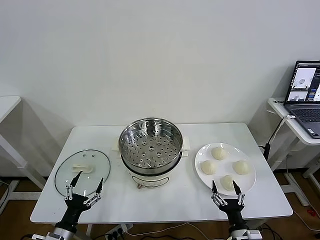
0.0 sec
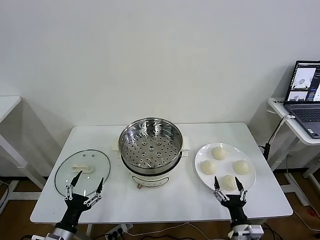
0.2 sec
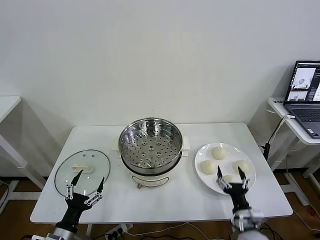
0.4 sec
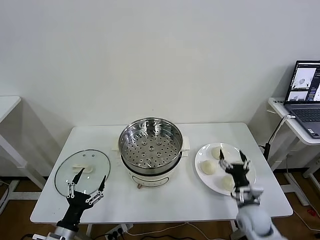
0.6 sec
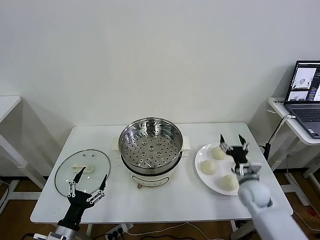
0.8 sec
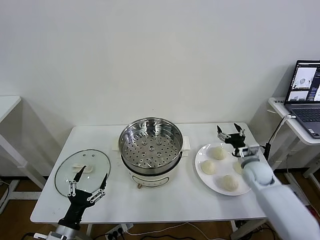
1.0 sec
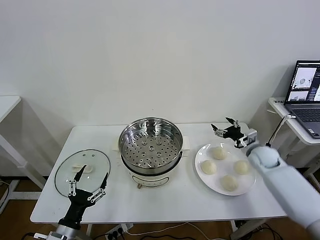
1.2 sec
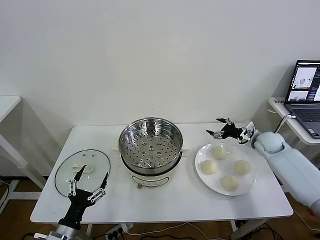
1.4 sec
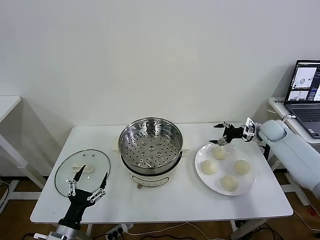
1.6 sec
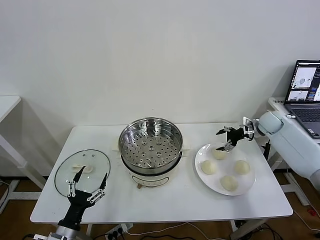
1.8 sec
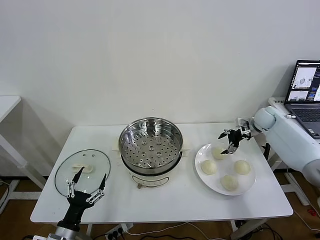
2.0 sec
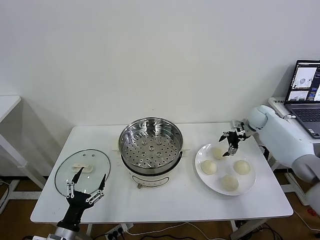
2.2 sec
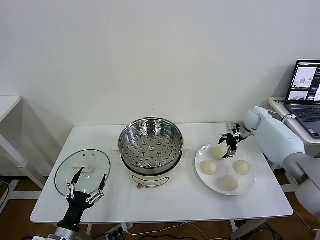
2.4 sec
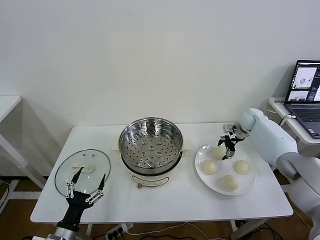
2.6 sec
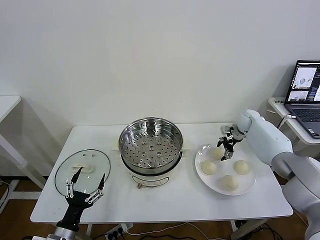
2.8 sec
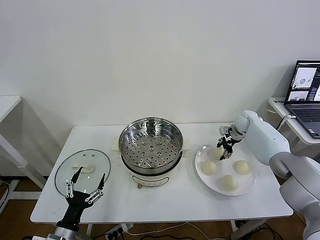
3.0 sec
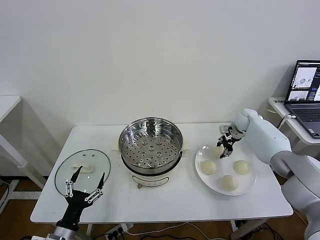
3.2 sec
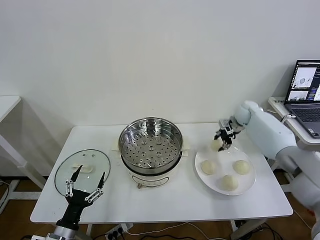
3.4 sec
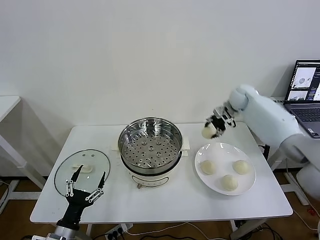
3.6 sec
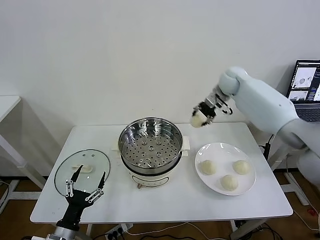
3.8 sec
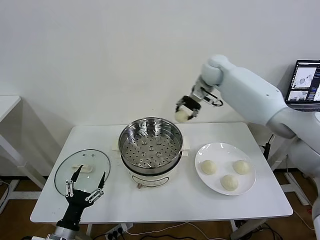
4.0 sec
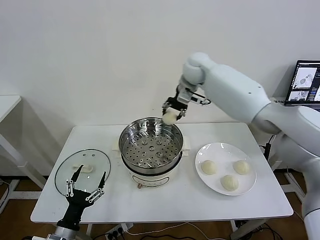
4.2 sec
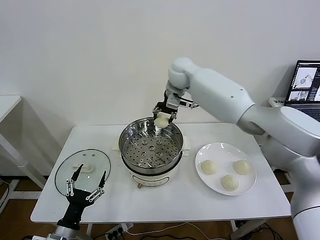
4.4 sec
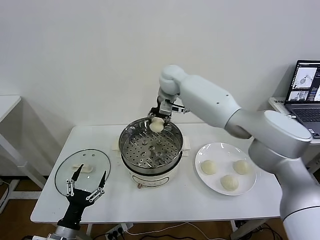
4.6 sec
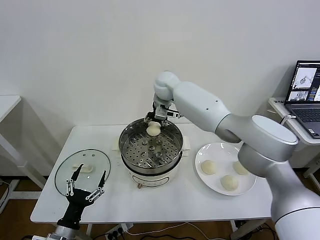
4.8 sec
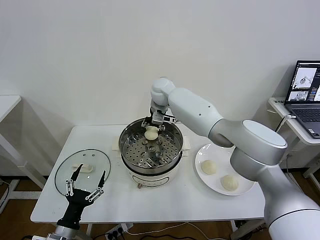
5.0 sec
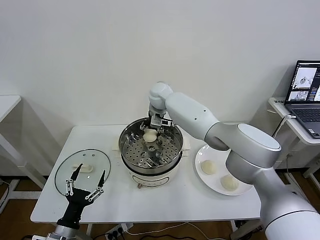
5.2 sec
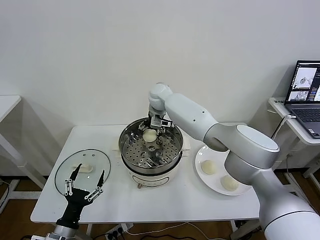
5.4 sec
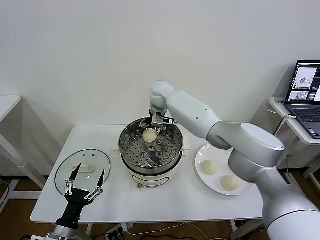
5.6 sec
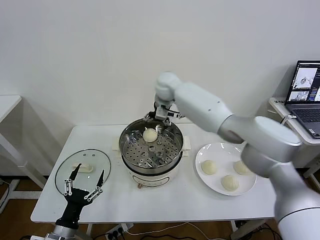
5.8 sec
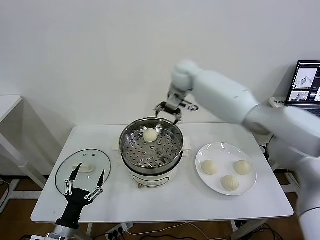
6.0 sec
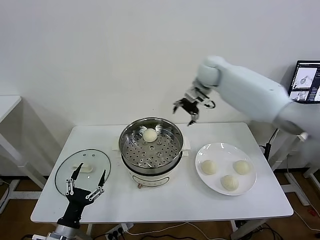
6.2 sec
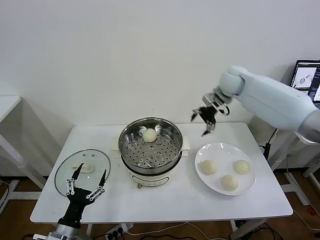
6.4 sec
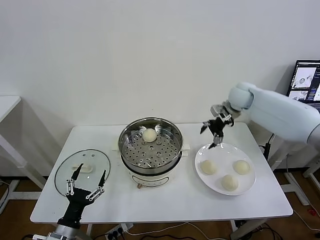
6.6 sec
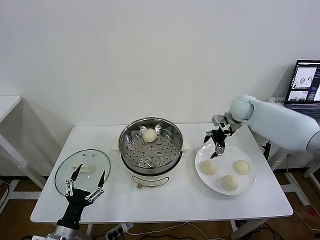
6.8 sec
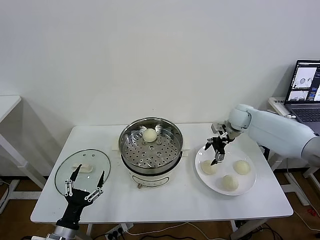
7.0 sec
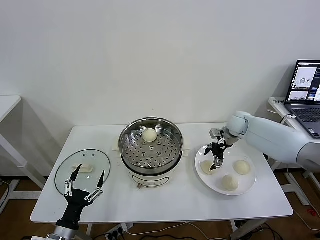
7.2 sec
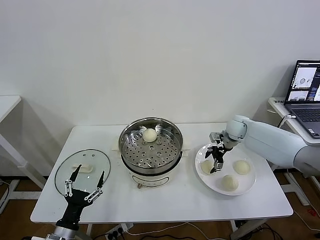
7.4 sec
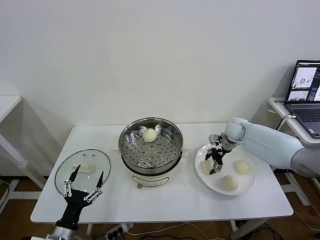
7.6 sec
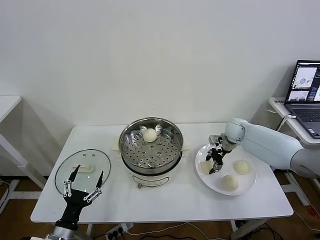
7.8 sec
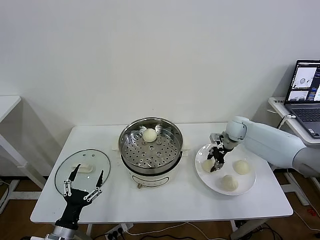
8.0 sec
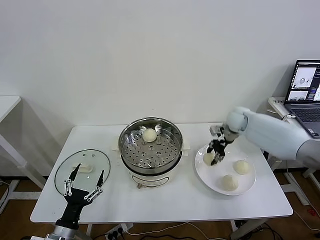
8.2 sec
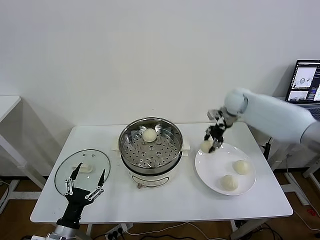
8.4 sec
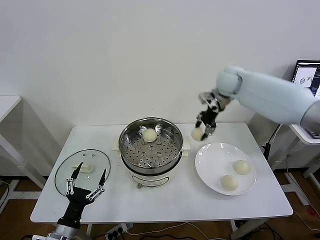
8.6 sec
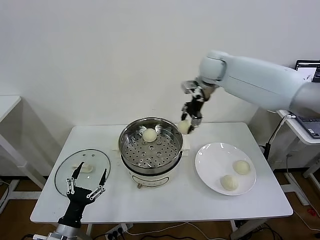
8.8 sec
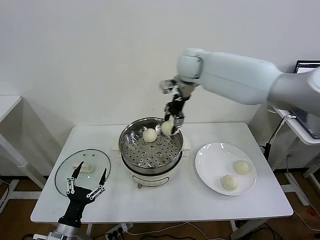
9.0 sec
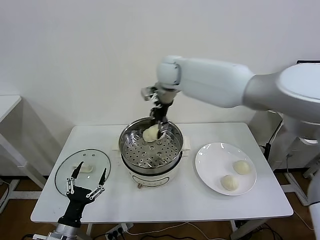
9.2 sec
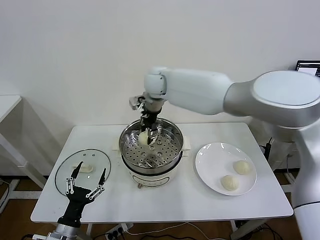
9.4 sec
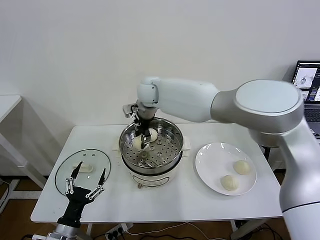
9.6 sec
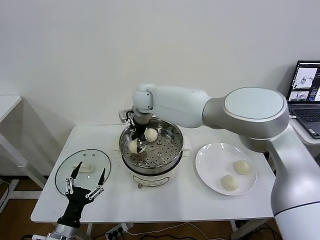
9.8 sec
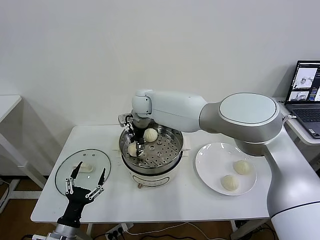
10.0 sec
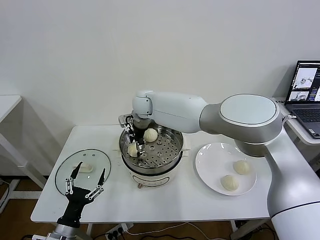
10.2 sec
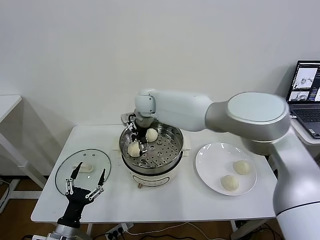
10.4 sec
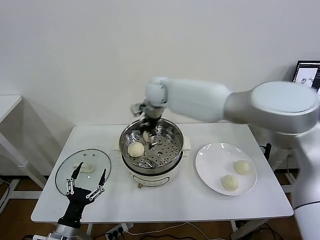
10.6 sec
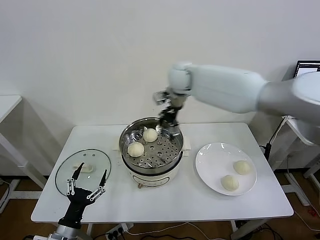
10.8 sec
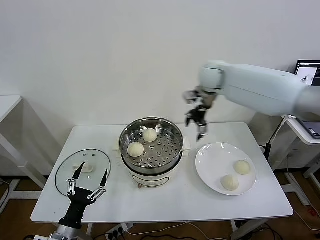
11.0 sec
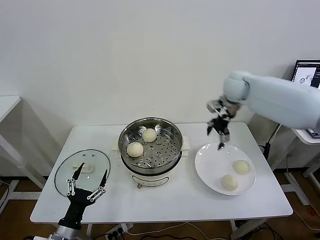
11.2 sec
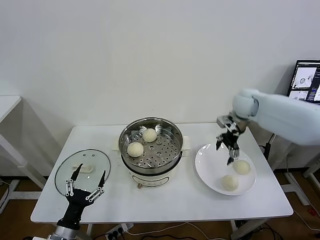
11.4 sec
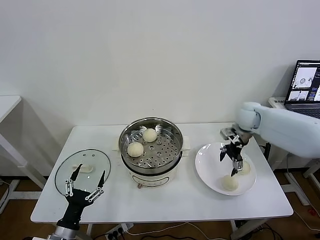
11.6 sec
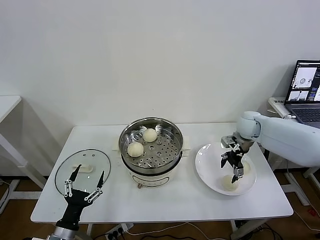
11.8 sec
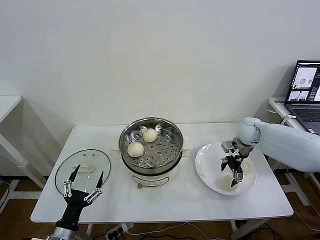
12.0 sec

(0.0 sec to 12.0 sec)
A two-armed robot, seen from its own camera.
Task of the whole recording: take steamed baozi put them in steamer then cover it.
Step, 0.0 sec - 3.0 sec: Grasp the baozi in the plate with right gripper.
Step, 3.4 sec - 5.4 sec: Place the baozi on the steamer with right gripper.
Step, 5.6 sec - 7.8 sec: Grasp the baozi in the plate with right gripper.
Step, 8.2 sec - 10.2 sec: Place the baozi on the steamer with right gripper.
1.6 sec - 3.0 sec: The right gripper goes approximately 10 cm to the left and forward, and closes its fingers.
3.0 sec - 4.4 sec: The right gripper moves to the left and upward, about 40 cm.
4.4 sec - 6.0 sec: The right gripper heads to the right, covering some 10 cm, and opens.
6.0 sec - 7.6 sec: The right gripper travels downward and to the right by some 30 cm, and closes.
7.6 sec - 9.0 sec: The right gripper heads upward and to the left, covering about 35 cm, and closes.
9.0 sec - 10.4 sec: The right gripper shifts approximately 15 cm downward and to the left, and opens up.
10.4 sec - 12.0 sec: The right gripper goes approximately 35 cm to the right.

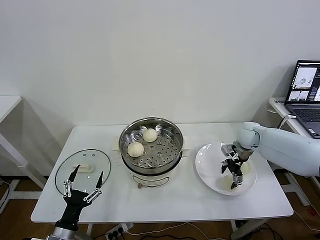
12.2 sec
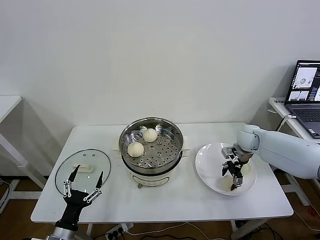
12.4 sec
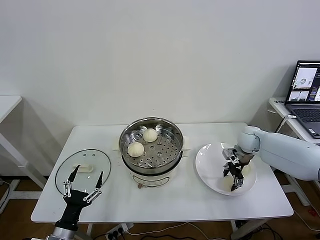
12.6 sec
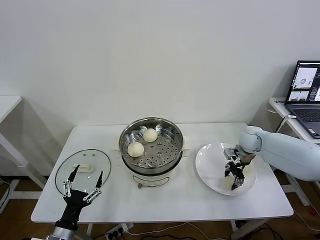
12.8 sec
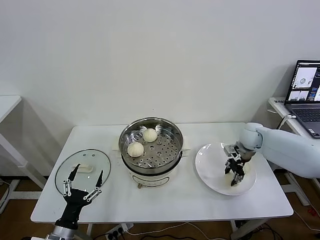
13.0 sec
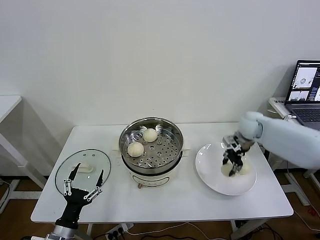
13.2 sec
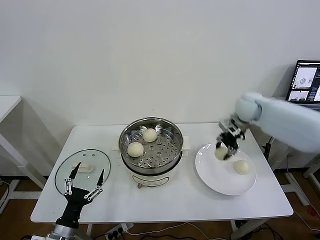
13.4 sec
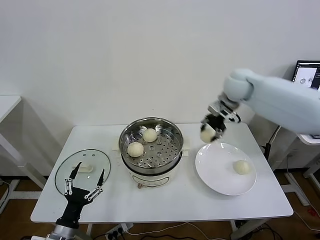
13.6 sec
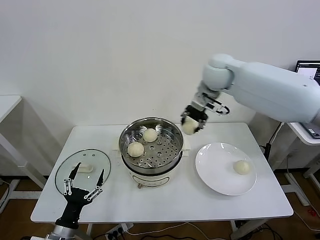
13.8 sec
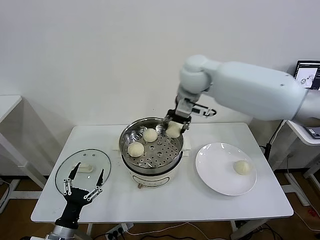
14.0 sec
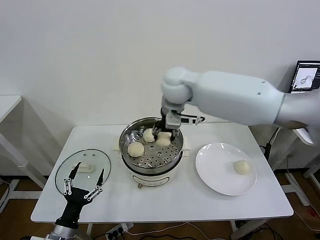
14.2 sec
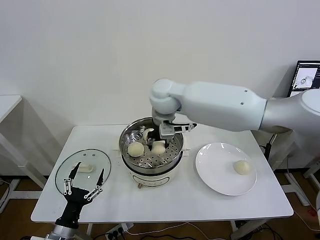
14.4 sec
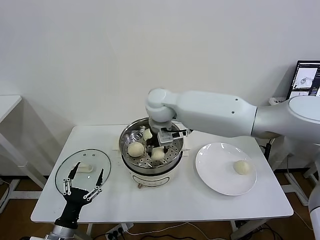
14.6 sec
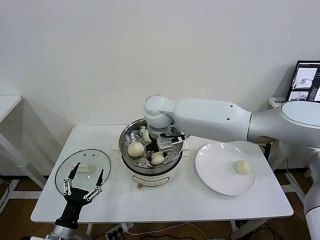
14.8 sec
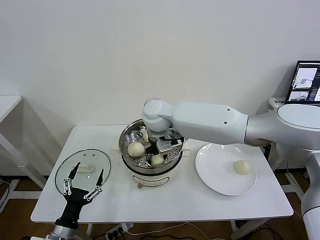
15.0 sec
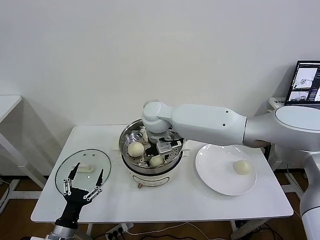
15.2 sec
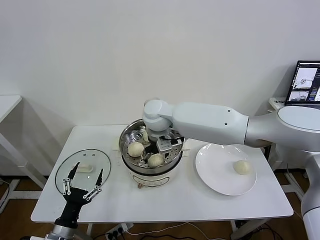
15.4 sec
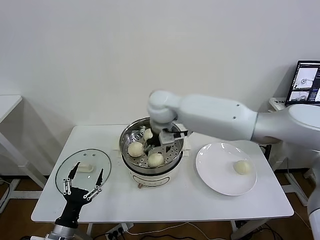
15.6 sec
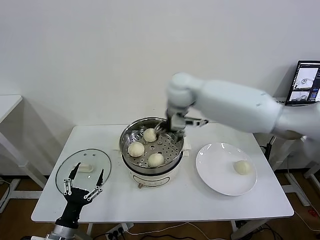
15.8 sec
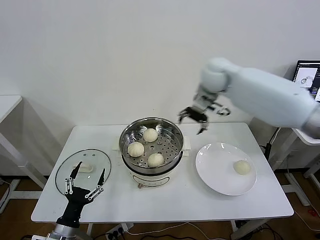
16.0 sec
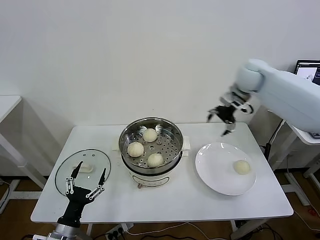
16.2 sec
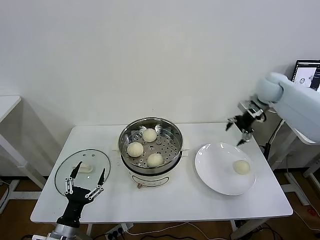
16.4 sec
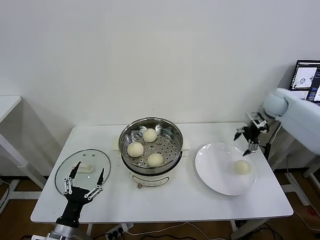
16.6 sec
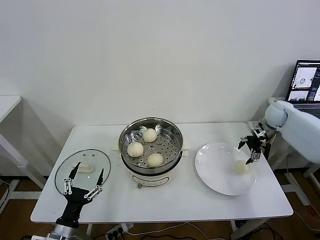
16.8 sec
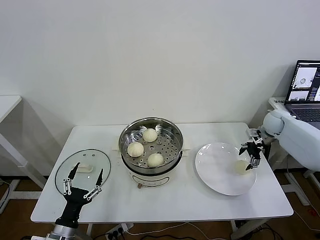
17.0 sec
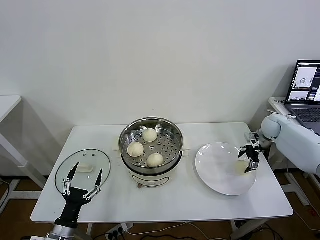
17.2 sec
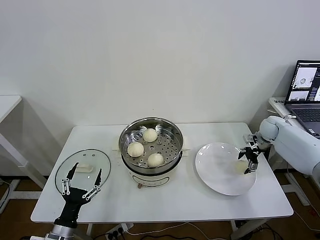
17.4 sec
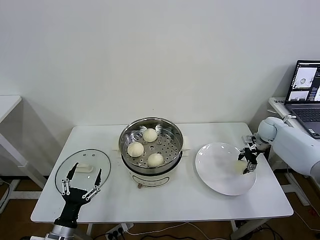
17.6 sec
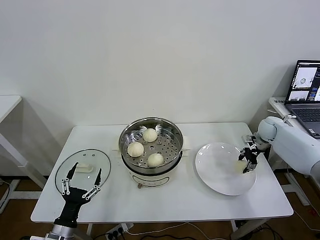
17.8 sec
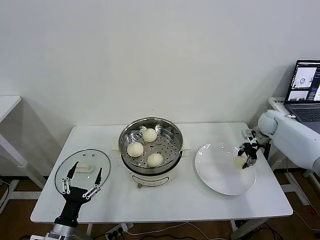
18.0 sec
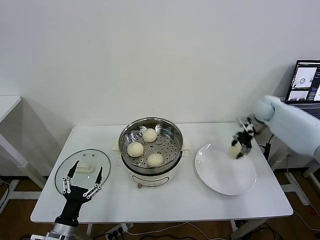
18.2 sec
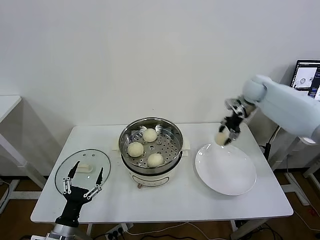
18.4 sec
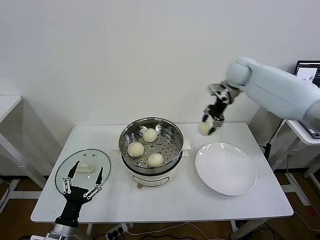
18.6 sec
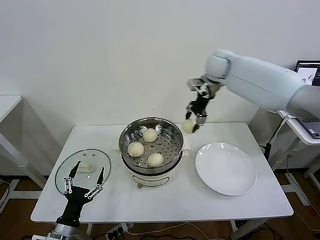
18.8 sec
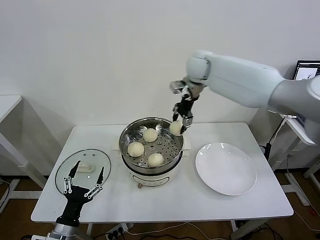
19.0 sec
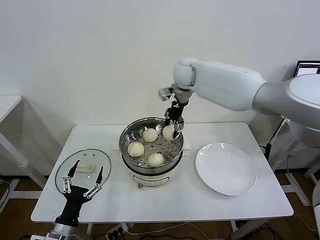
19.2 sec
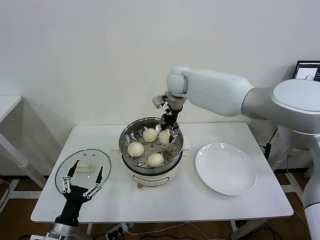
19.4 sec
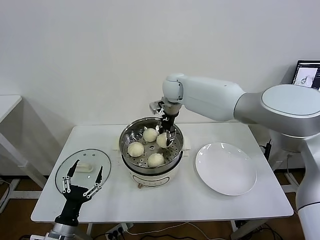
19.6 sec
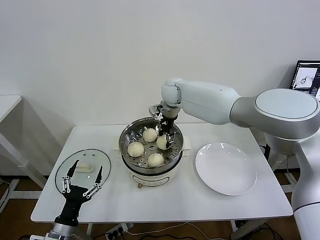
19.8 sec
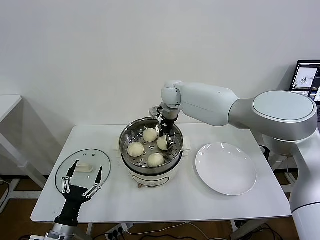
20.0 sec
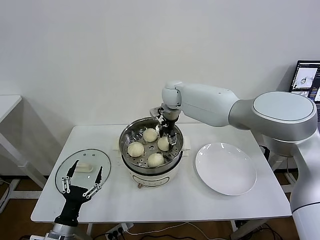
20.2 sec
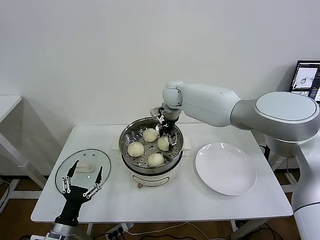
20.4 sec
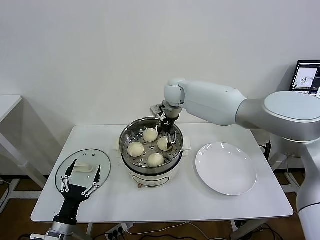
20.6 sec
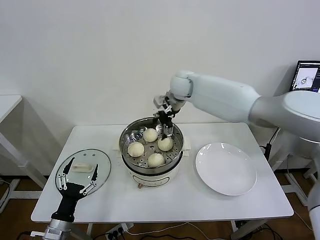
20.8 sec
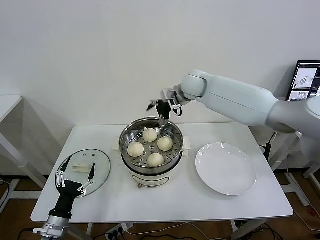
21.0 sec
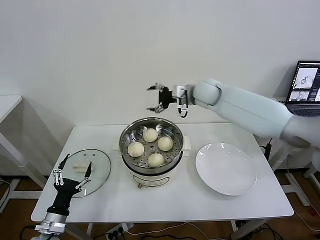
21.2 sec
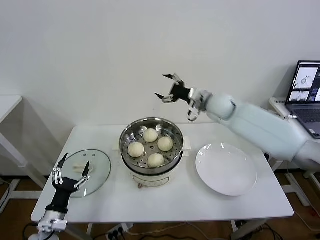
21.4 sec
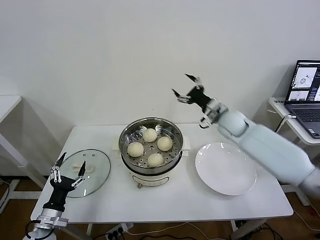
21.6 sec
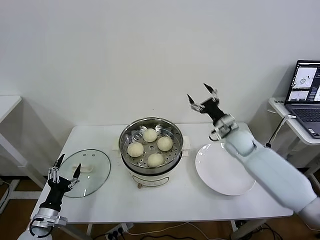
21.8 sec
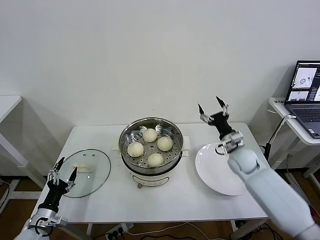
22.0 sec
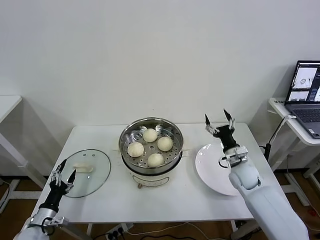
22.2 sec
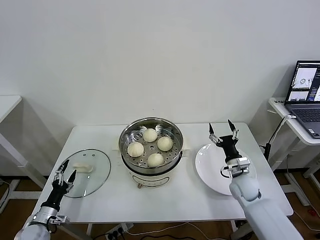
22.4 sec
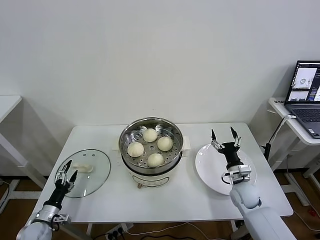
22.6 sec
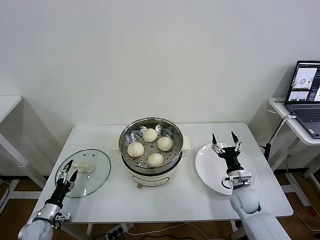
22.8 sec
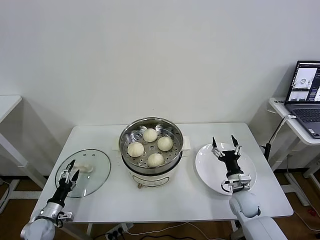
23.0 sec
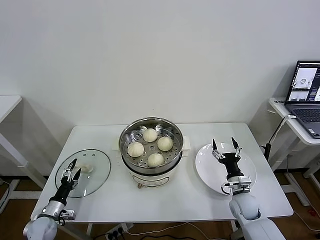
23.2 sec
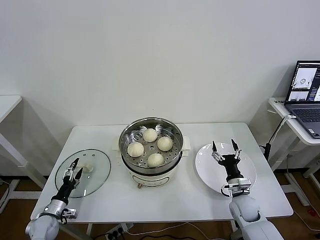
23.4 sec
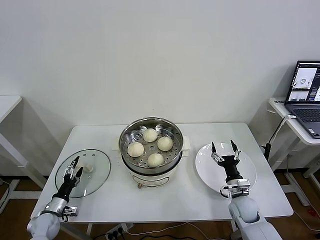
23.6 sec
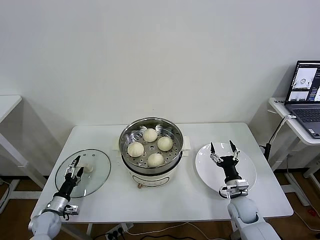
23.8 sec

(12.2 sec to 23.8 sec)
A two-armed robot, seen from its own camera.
Task of the whole recording: take steamed baozi put them in steamer then cover it.
Step, 13.0 sec - 15.4 sec: Place the baozi on the steamer with right gripper.
Step, 15.6 sec - 17.8 sec: Grasp the baozi in the plate with right gripper.
Step, 18.0 sec - 20.4 sec: Place the baozi on the steamer with right gripper.
12.2 sec - 13.6 sec: The right gripper goes about 25 cm upward and to the left, and closes up.
13.6 sec - 15.0 sec: The right gripper heads to the left, covering about 25 cm.
15.0 sec - 16.6 sec: The right gripper moves to the right, some 40 cm, and opens.
16.6 sec - 18.0 sec: The right gripper goes approximately 10 cm downward, and closes.
18.0 sec - 19.4 sec: The right gripper goes about 40 cm to the left and upward.
19.4 sec - 21.0 sec: The right gripper is displaced to the right by roughly 5 cm, and opens.
21.0 sec - 22.4 sec: The right gripper is displaced downward, backward and to the right by some 40 cm, while the left gripper travels to the left and downward by some 10 cm.
22.4 sec - 23.8 sec: The left gripper moves forward, approximately 5 cm. The right gripper shifts some 10 cm downward and backward.
